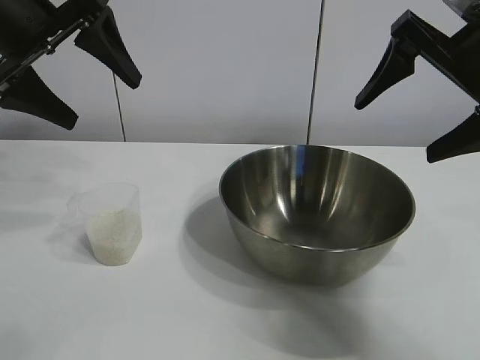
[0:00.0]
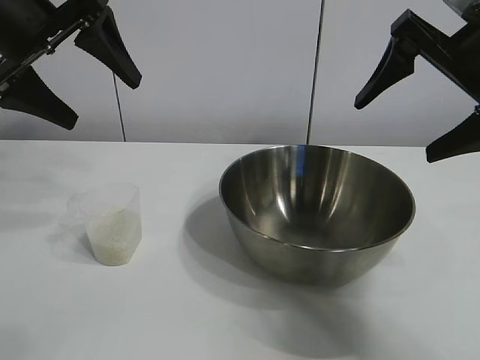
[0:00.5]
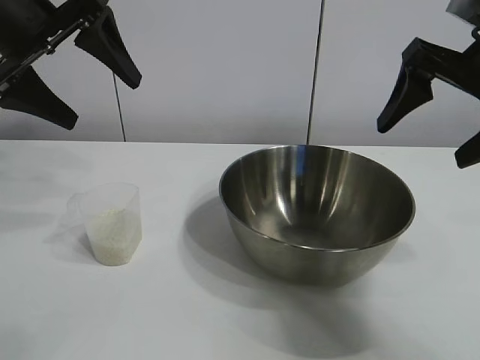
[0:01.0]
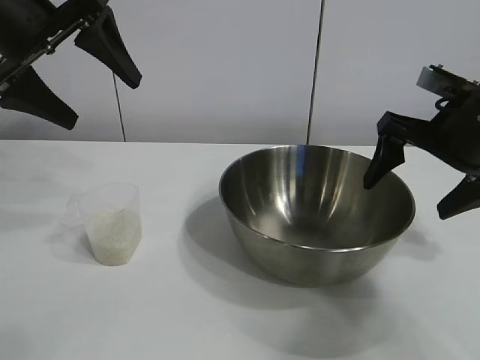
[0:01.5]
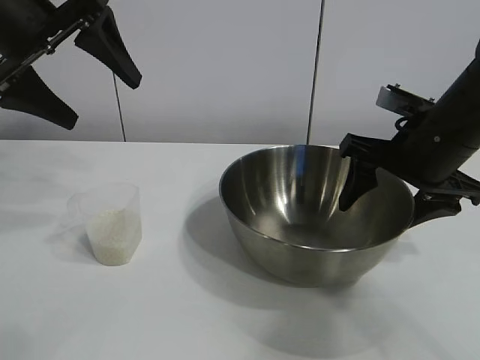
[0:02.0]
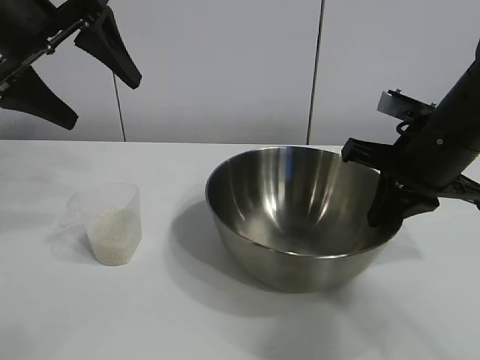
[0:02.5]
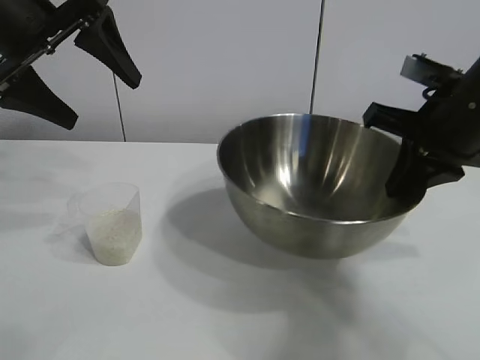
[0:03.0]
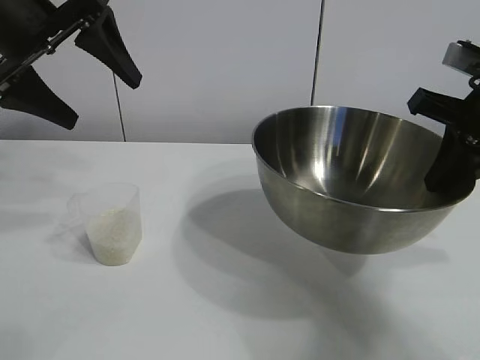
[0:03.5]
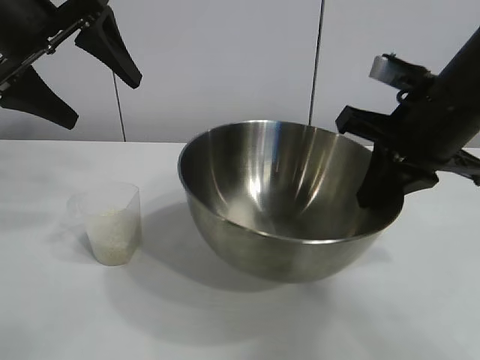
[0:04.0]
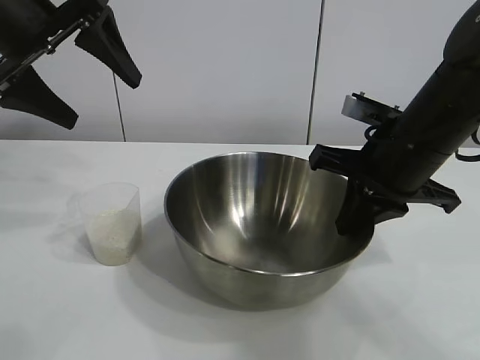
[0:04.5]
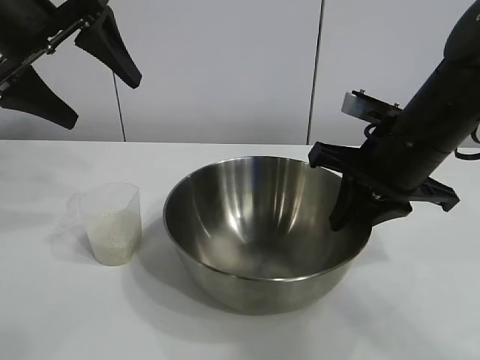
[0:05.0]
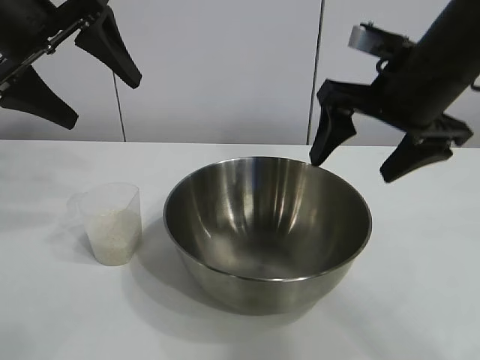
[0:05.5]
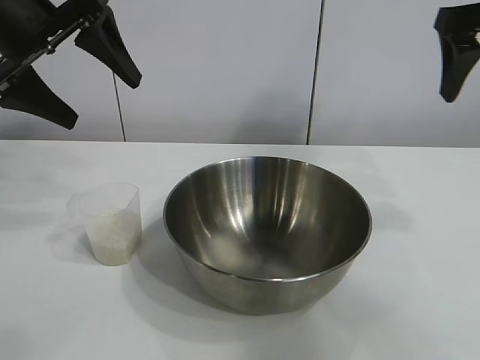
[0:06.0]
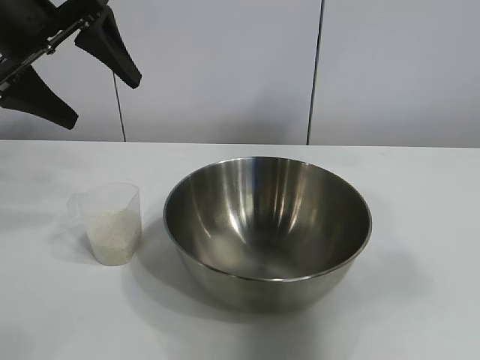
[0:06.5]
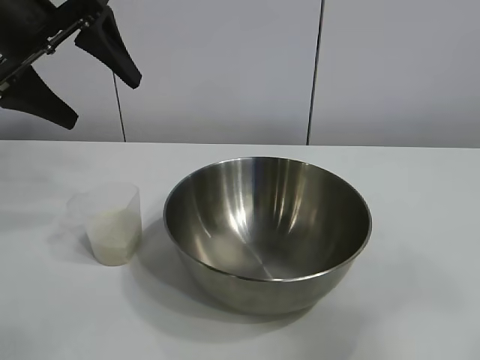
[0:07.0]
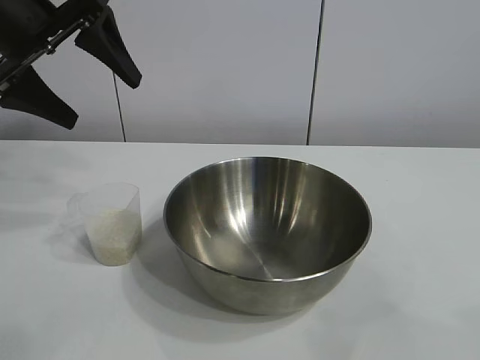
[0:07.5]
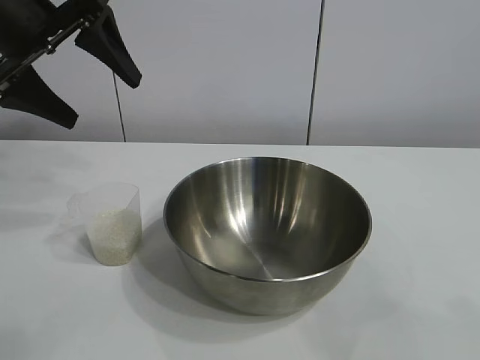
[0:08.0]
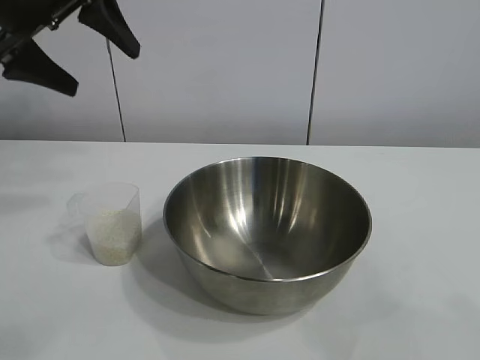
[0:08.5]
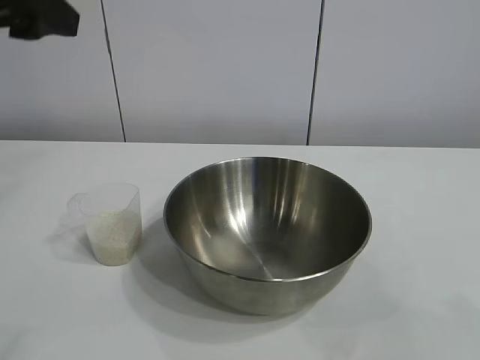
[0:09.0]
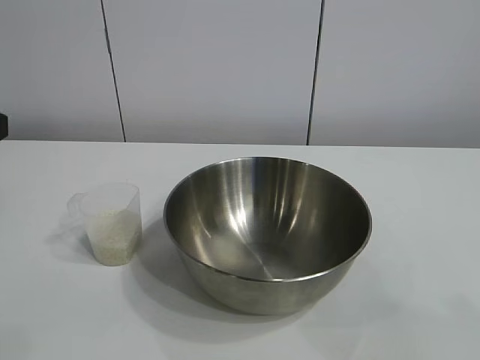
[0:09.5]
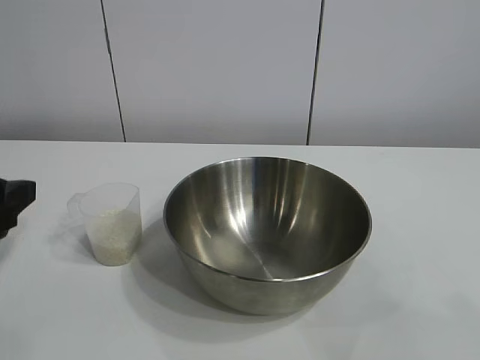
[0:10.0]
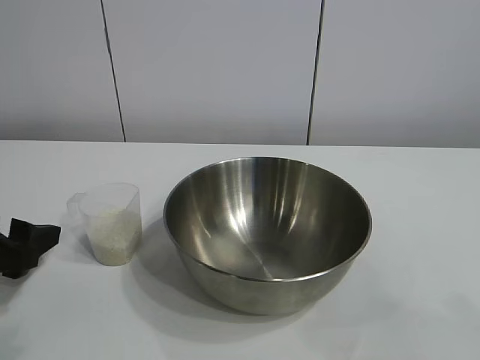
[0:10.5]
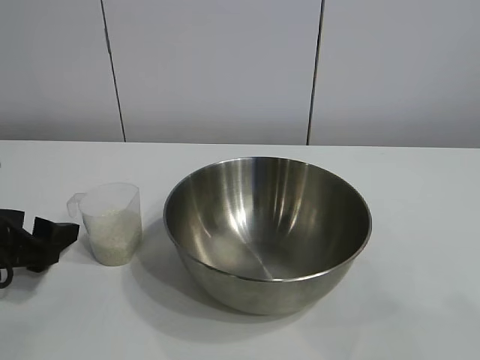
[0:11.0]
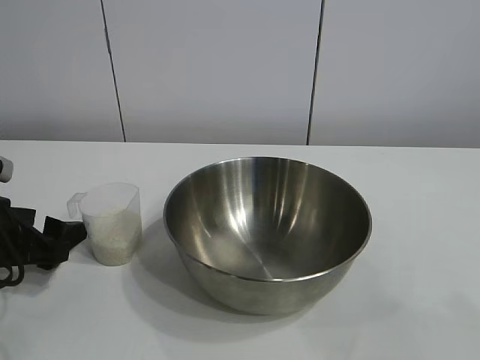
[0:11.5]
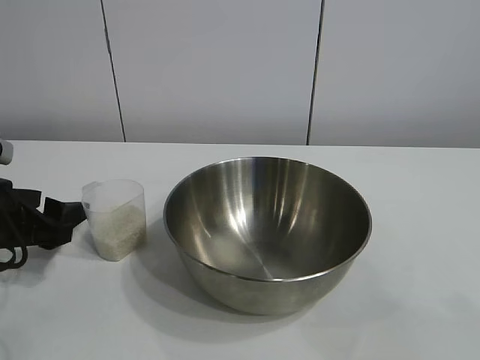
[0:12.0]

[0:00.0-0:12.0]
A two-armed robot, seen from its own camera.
Task of the whole recording: the right gripper grasp the rice container and place it in the center of the table, the left gripper grasp the rice scoop and pour the rice into the rice container.
Step, 1.0 to 5.0 s: Move the bowl in the center of view with right gripper.

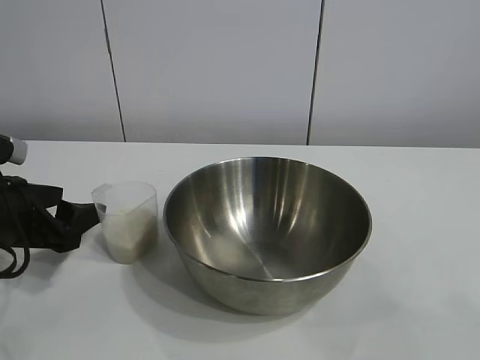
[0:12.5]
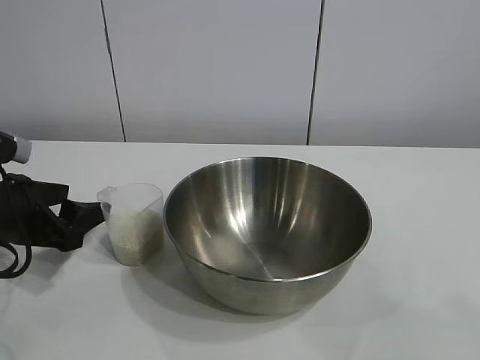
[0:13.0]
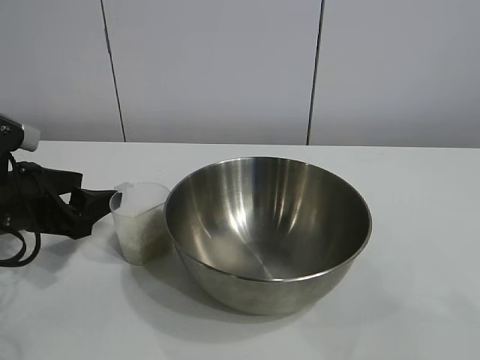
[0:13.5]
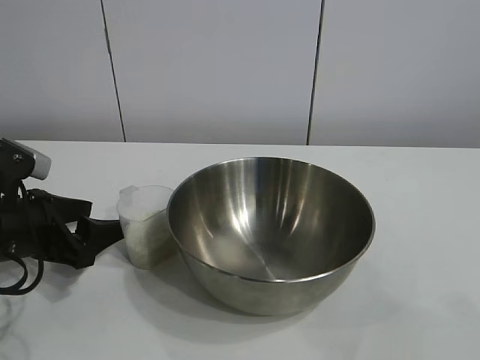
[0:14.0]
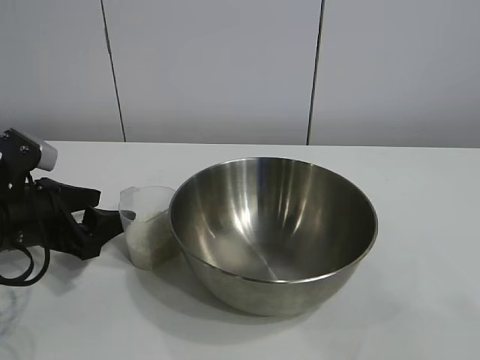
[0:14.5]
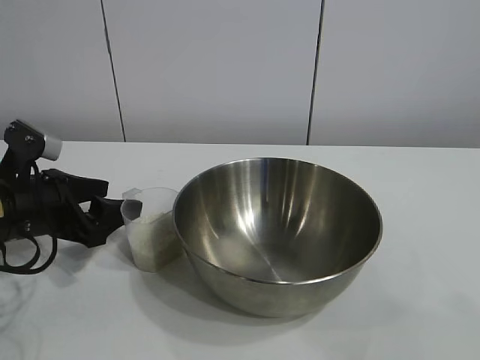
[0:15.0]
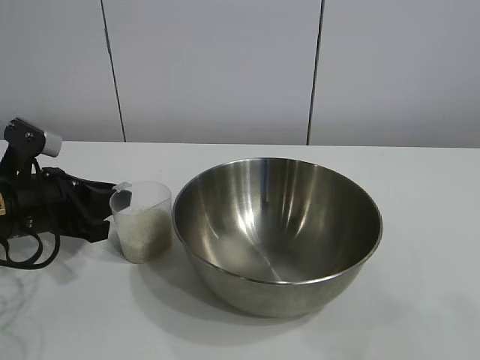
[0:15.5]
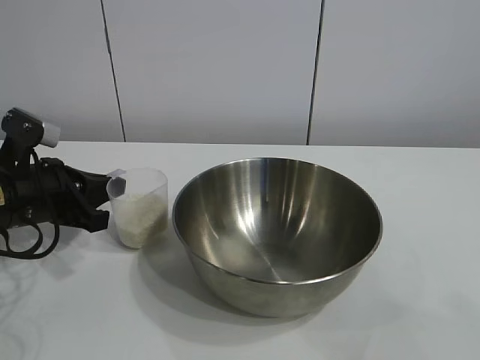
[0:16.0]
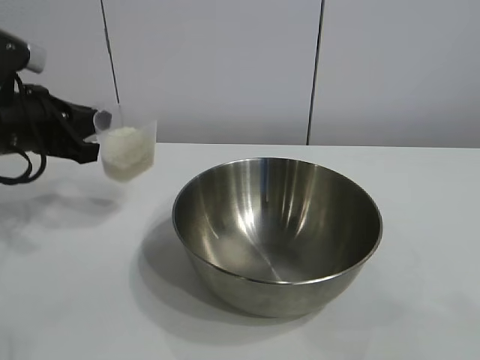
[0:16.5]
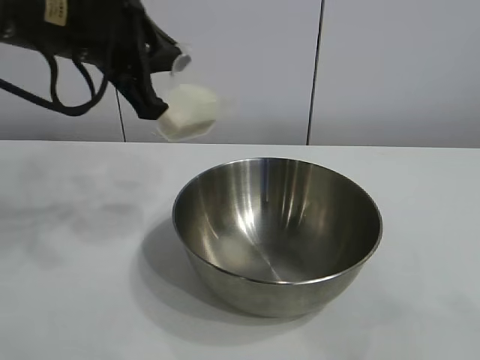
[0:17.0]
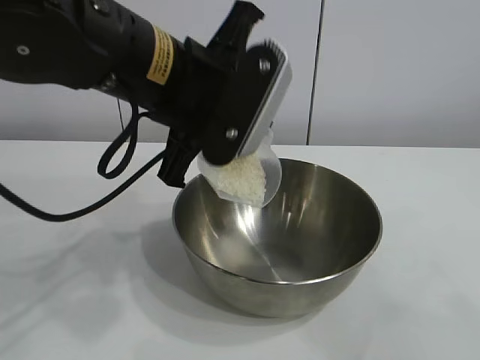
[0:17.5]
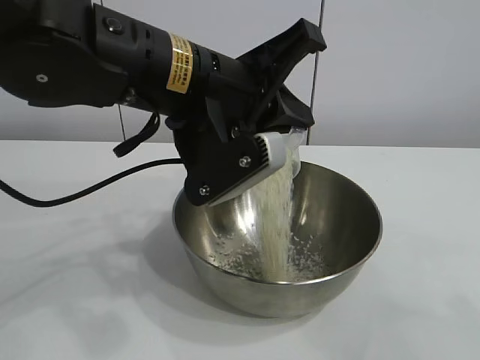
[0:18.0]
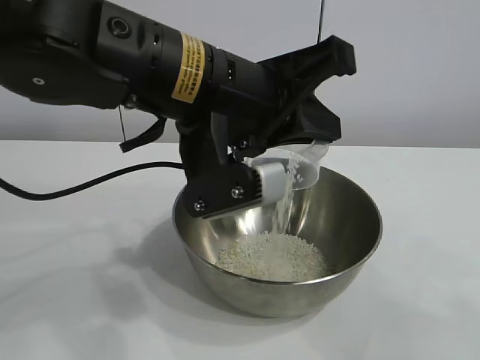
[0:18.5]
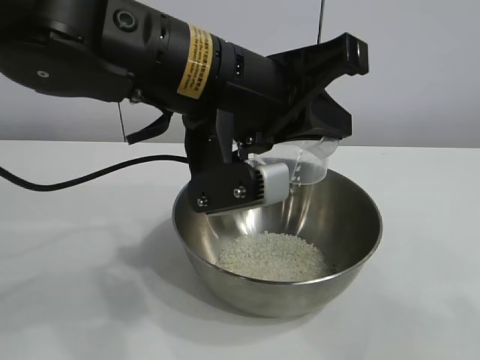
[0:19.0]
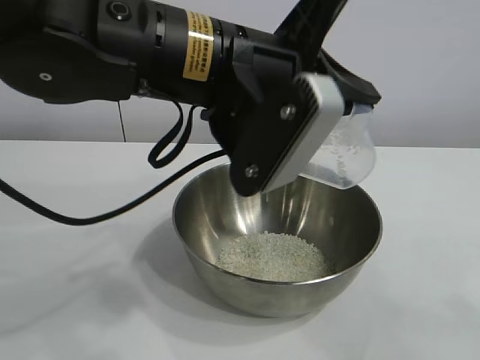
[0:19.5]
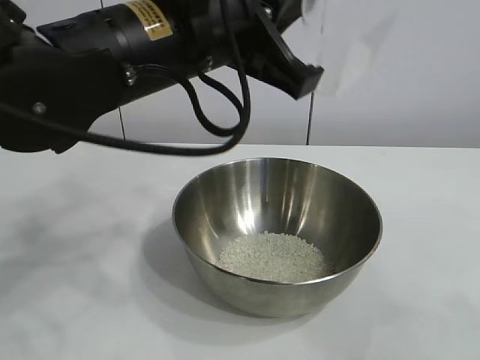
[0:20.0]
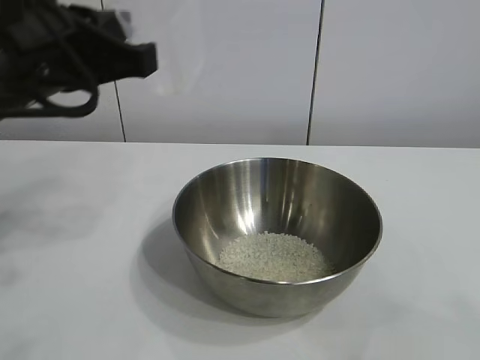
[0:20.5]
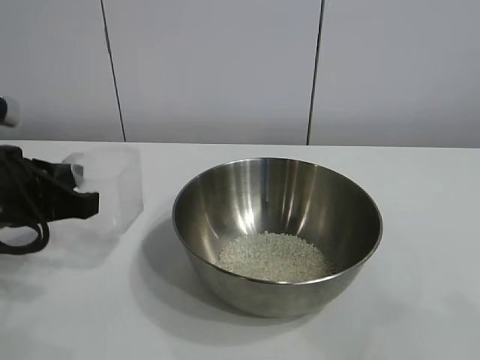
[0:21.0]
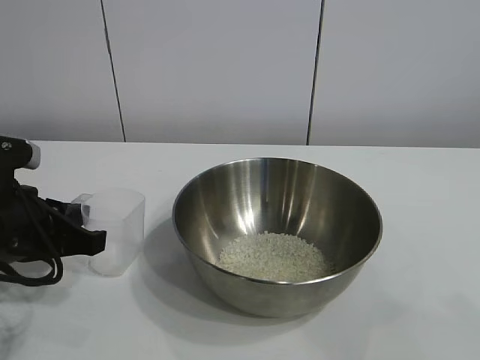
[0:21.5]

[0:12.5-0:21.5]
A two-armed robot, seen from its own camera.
Task of the whole recording: the right gripper grasp the rice container and place it in the center of the table, the left gripper grasp the rice scoop and pour the rice into the rice container.
Step, 12.5 to 15.5 s: Grasp the cup with rice in it with left gripper.
Step, 16.0 to 18.5 s: Pour the rice from the cup into the bowl with the left gripper.

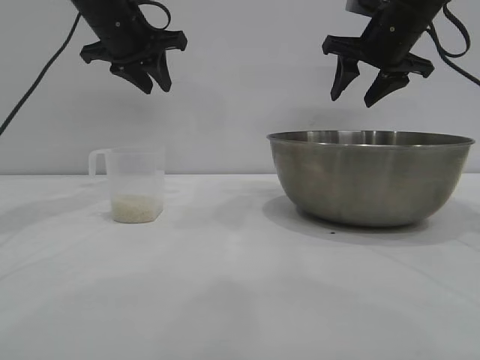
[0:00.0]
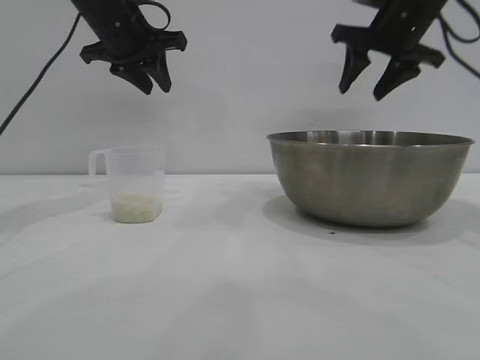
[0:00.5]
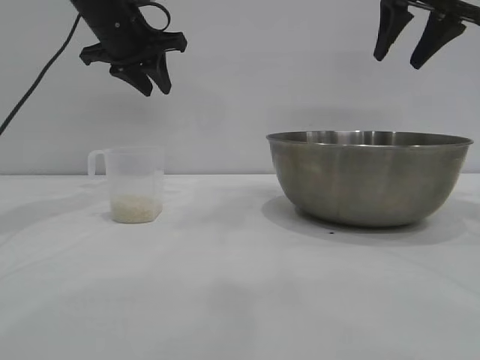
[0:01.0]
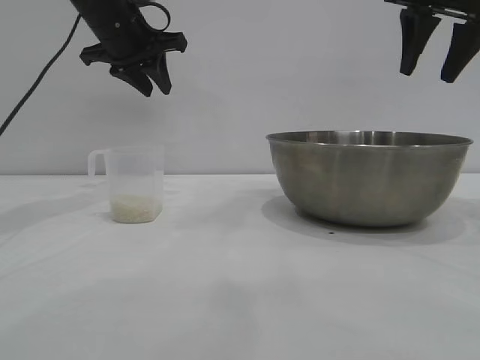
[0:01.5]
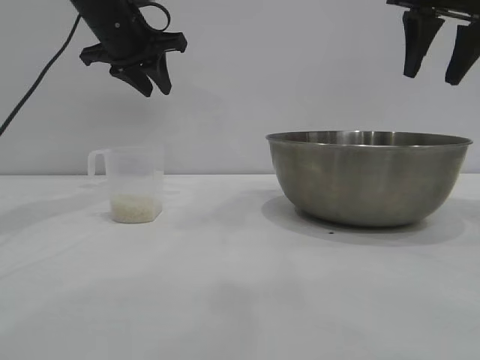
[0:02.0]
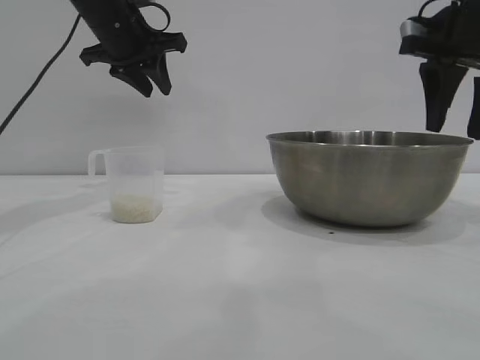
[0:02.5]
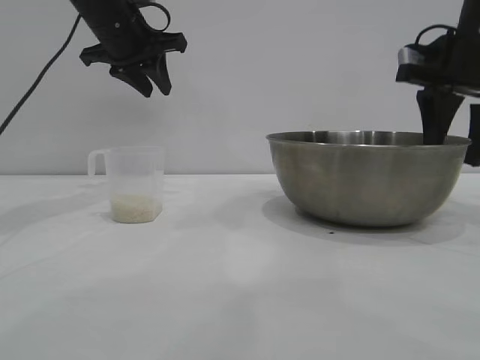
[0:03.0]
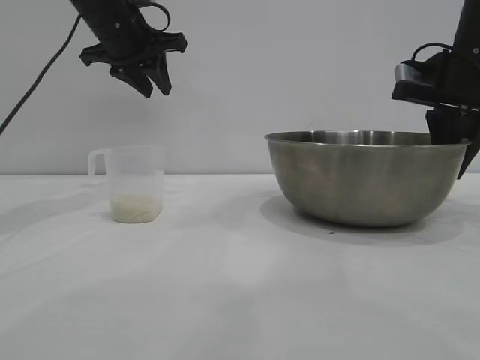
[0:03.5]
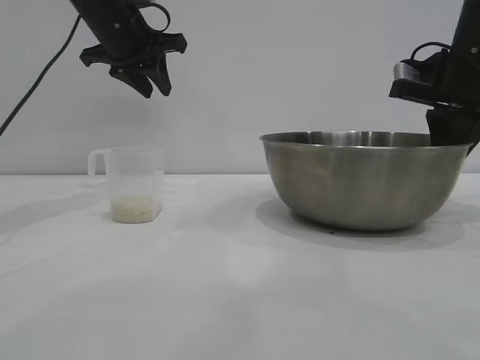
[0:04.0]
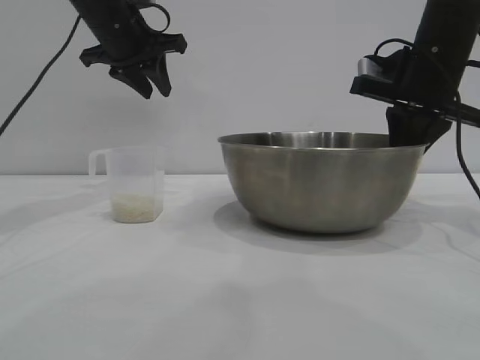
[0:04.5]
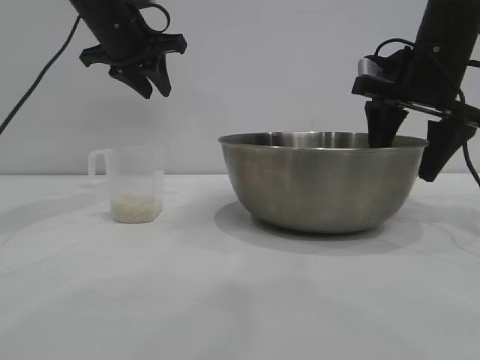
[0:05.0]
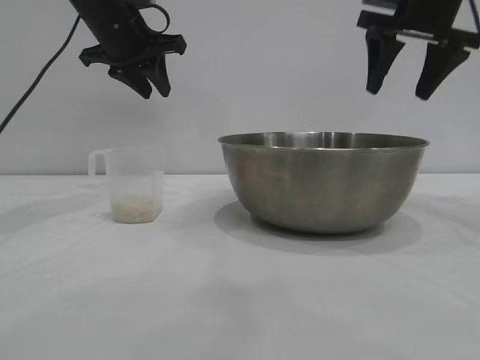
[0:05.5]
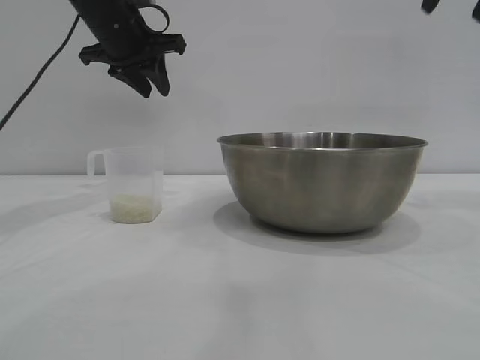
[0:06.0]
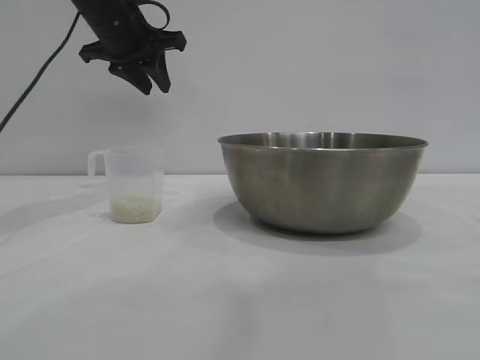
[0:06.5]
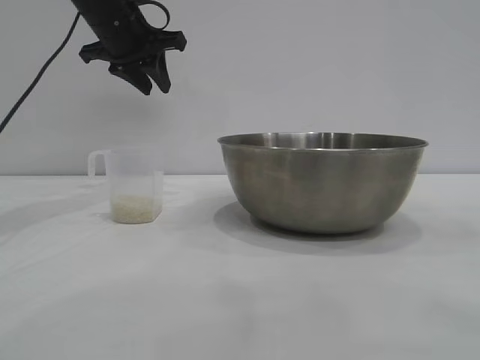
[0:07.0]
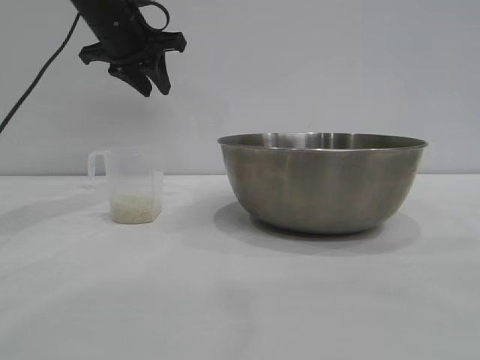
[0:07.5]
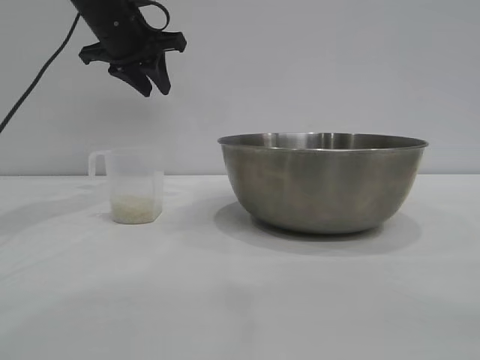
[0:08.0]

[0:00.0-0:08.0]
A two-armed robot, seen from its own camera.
Task of the whole recording: the right gripper grasp the rice container and place it in the center of the table, the left gripper grasp the rice scoop and pour the rice into the rice container.
Step, 0.0 to 5.0 s: Move the bowl to the center of view with the right gripper.
